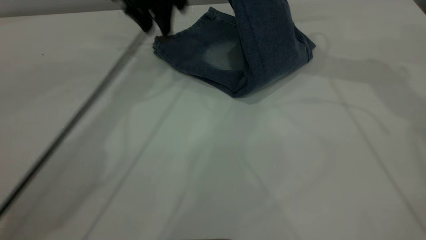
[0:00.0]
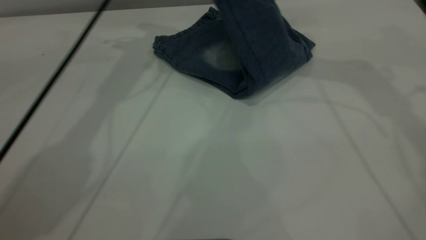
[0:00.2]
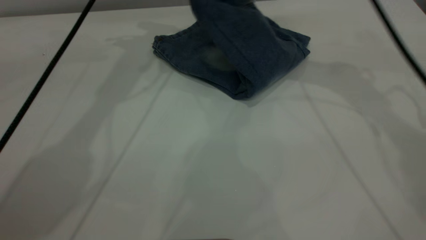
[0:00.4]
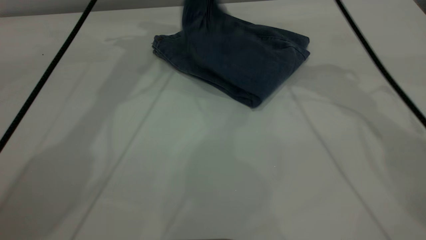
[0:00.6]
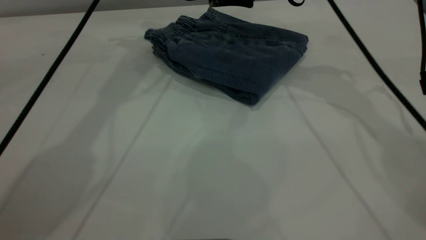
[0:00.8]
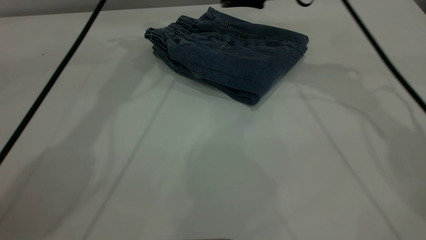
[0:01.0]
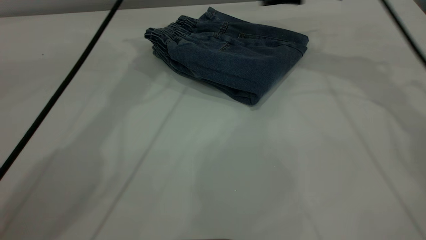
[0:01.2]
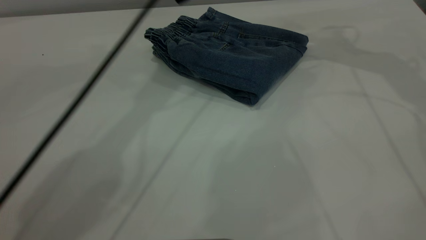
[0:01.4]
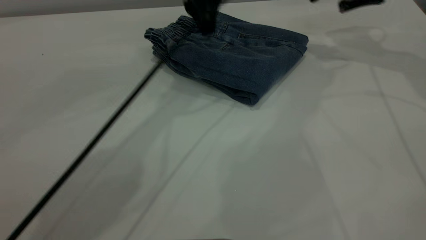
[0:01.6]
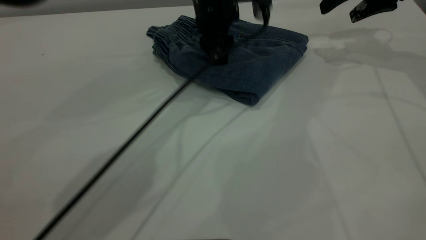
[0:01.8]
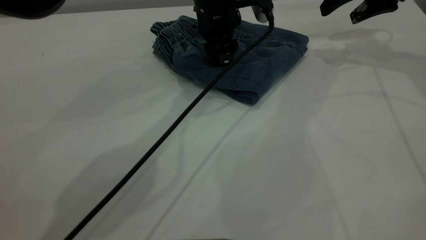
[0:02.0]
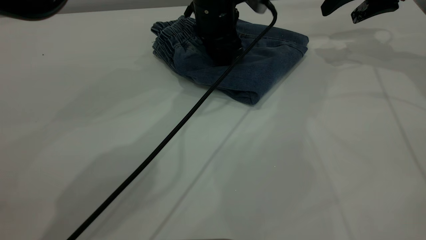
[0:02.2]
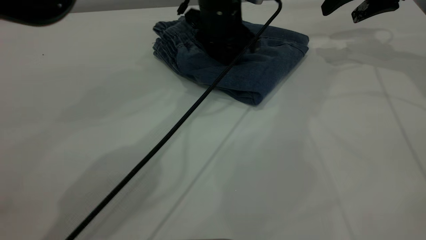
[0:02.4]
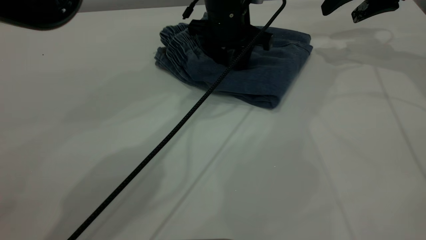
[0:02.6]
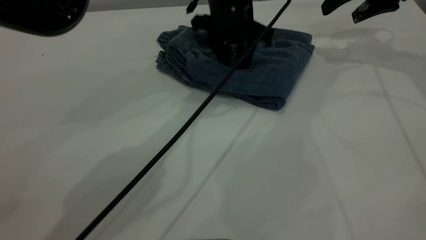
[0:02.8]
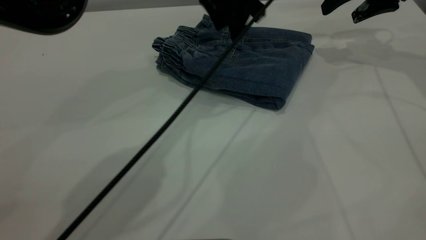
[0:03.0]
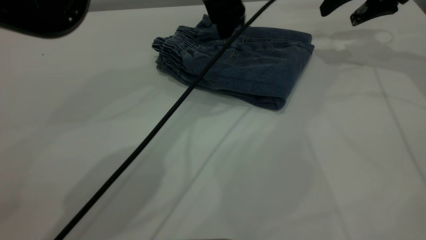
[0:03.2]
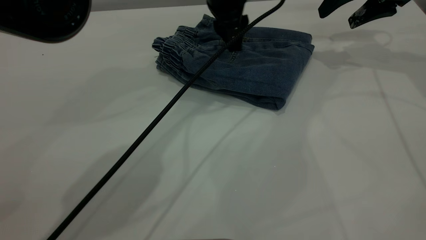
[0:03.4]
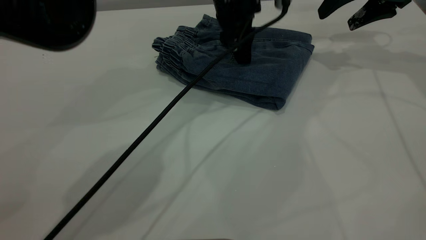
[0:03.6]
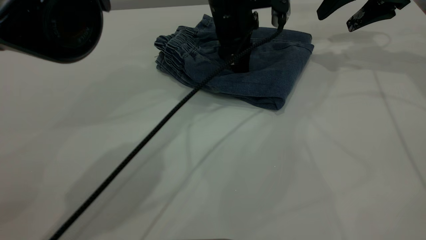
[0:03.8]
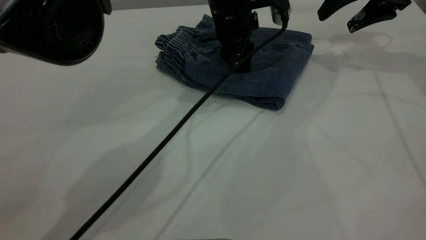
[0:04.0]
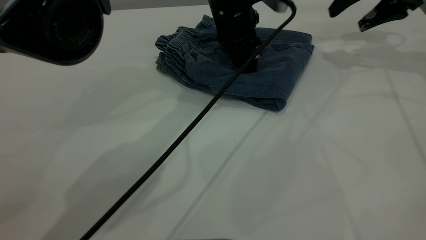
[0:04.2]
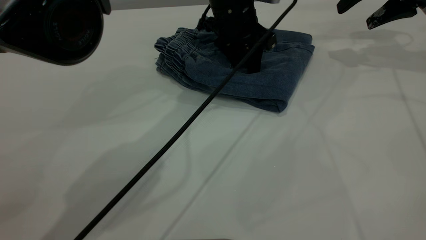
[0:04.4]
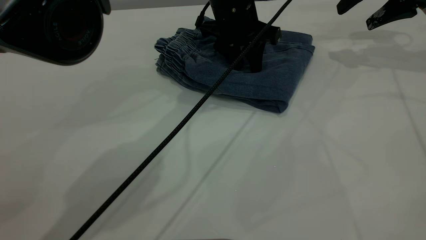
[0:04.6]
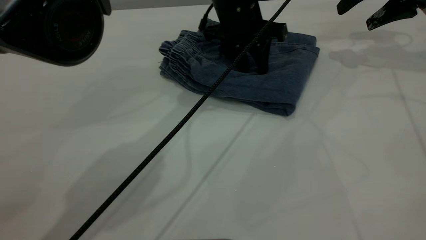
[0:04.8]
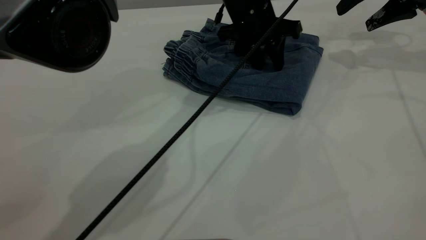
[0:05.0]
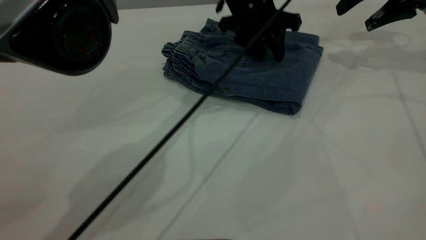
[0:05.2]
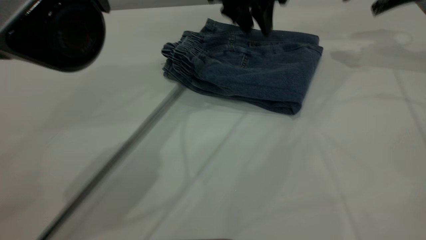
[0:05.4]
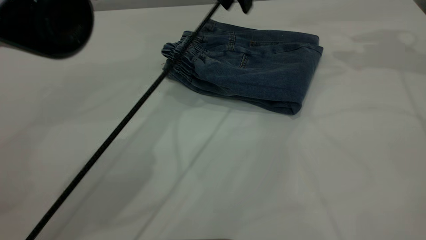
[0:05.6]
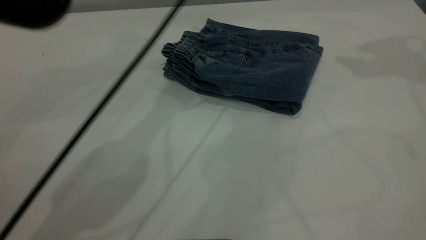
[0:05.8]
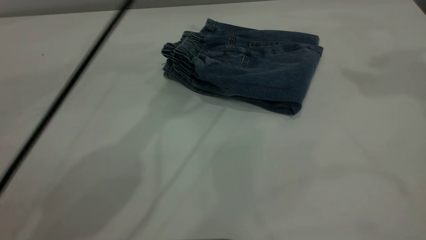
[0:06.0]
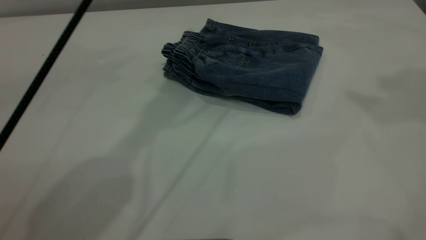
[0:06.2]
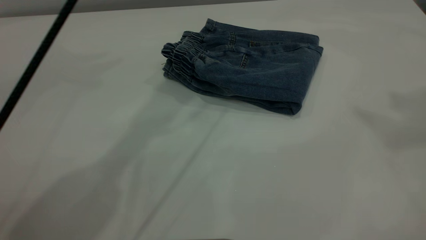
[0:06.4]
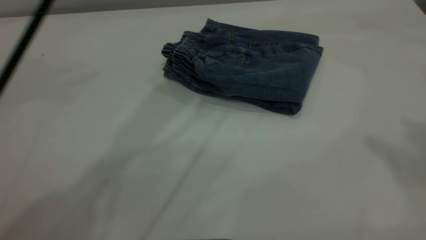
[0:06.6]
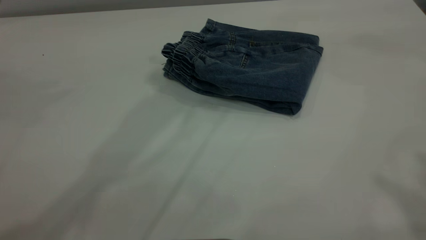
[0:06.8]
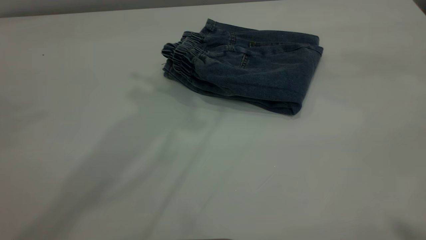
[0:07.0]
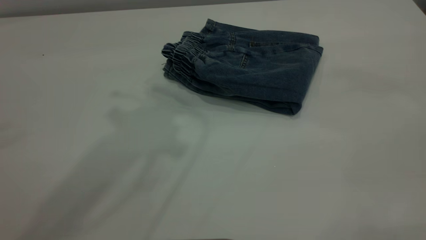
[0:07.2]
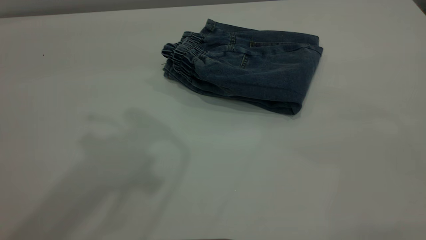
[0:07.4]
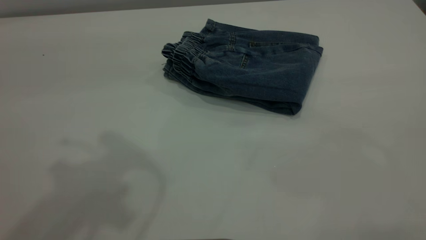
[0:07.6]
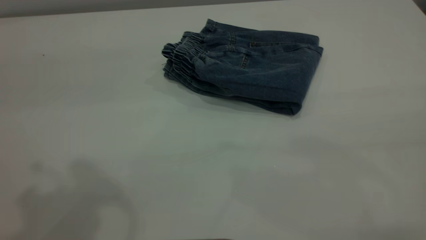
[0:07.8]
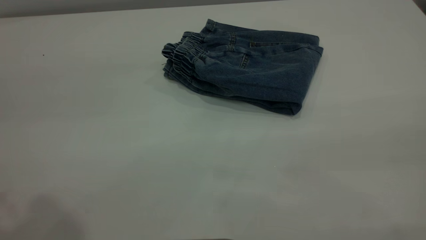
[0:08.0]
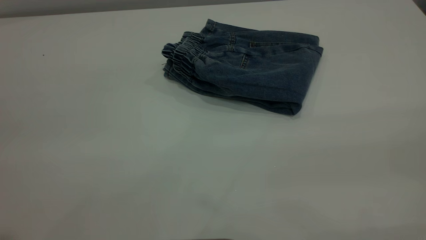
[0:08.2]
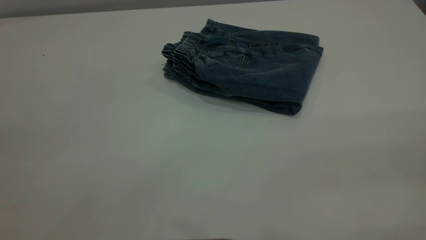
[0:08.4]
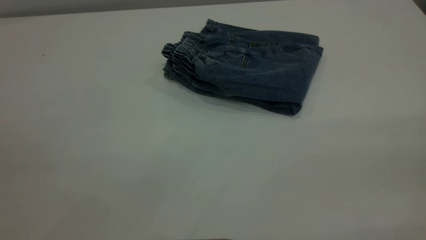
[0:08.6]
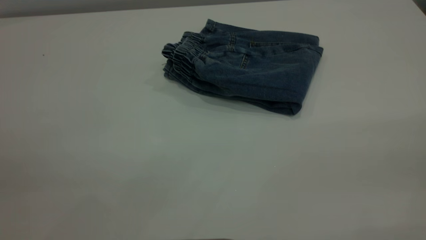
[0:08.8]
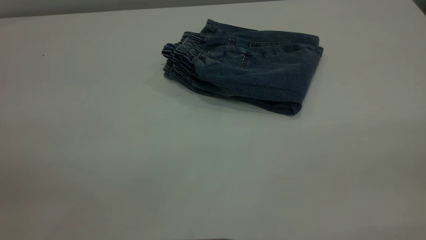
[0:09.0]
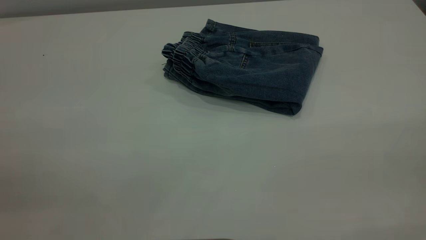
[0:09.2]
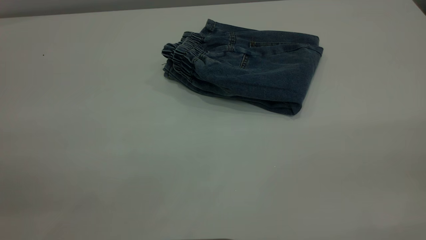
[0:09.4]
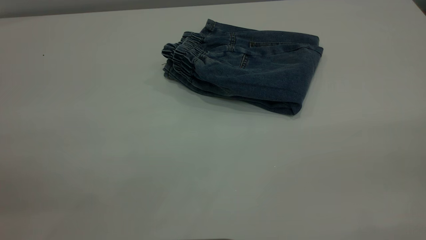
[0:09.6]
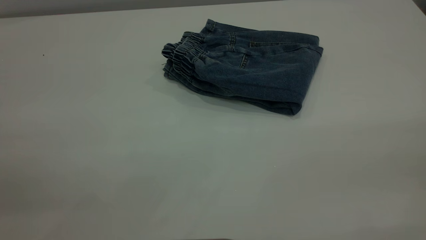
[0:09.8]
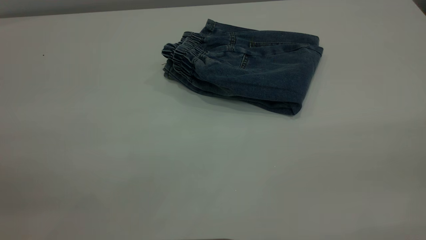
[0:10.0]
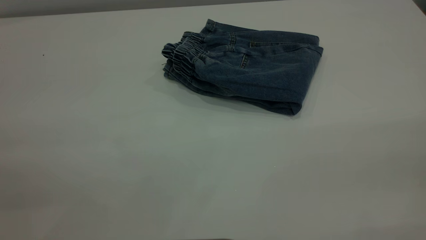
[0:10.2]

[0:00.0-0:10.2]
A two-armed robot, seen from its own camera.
0:00.0 to 0:01.4: The right gripper heads downward and to the right, covering about 10 cm, and opens its fingers. The left gripper moves to the right, roughly 10 cm.
0:01.4 to 0:03.0: The left gripper heads to the right, covering some 5 cm.
0:03.0 to 0:04.4: The left gripper moves downward, about 5 cm.
0:04.4 to 0:05.8: Both grippers move upward, roughly 20 cm.
0:05.8 to 0:07.2: The right gripper travels backward by approximately 35 cm, while the left gripper goes about 25 cm backward, upward and to the left.

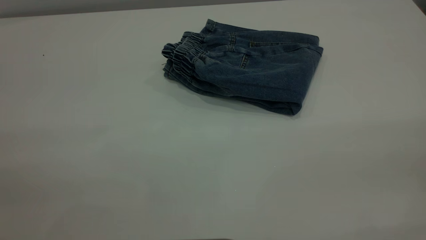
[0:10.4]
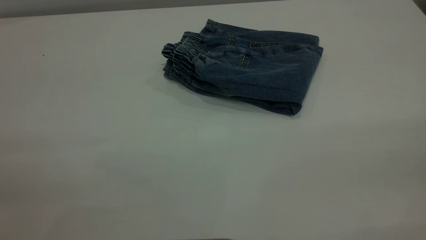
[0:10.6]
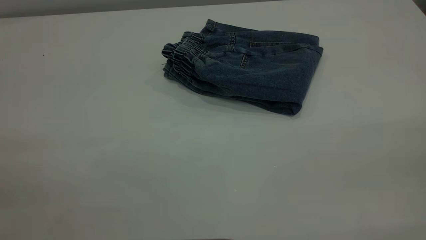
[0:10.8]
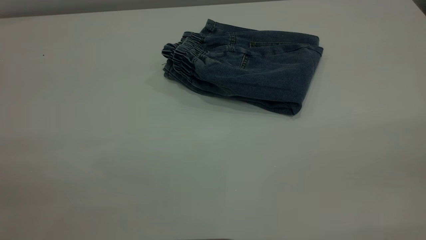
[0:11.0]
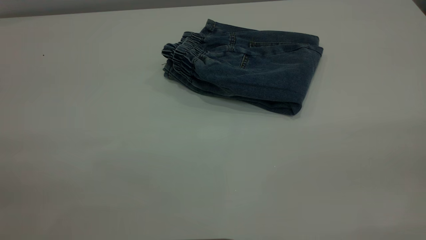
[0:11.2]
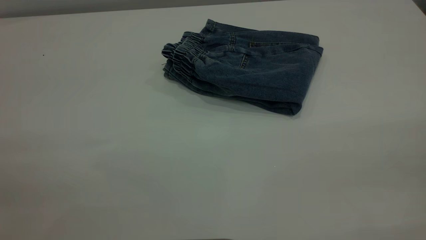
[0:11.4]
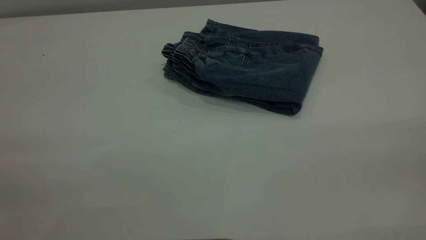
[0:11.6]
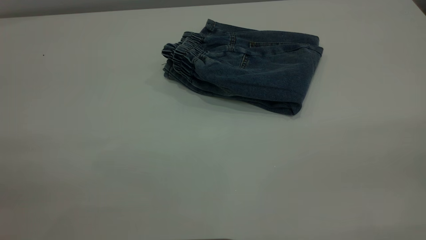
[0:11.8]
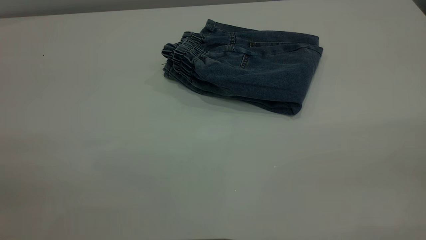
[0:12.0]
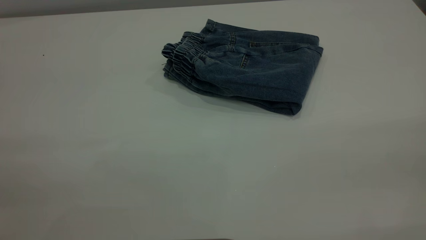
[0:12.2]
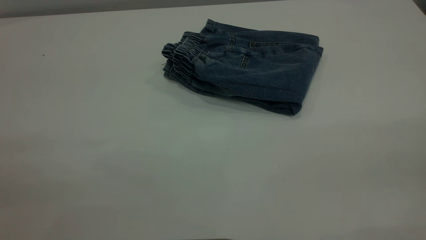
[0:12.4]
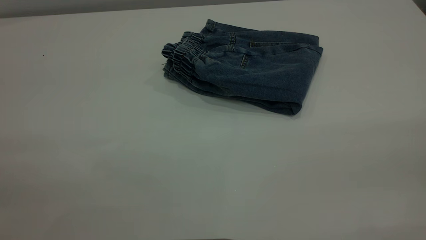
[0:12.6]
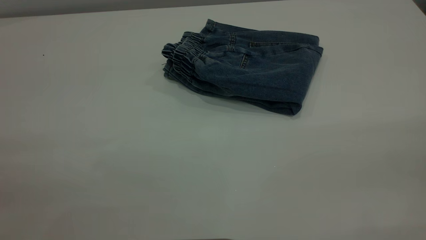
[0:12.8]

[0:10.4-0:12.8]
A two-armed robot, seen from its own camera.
0:11.6 to 0:12.8: The two grippers keep their place.
